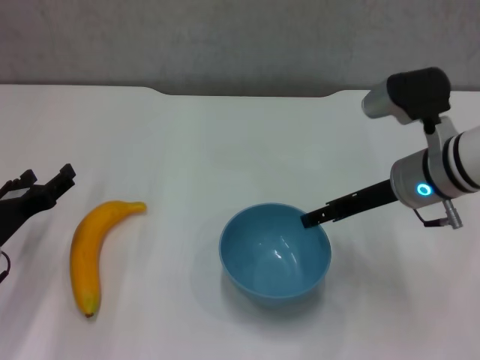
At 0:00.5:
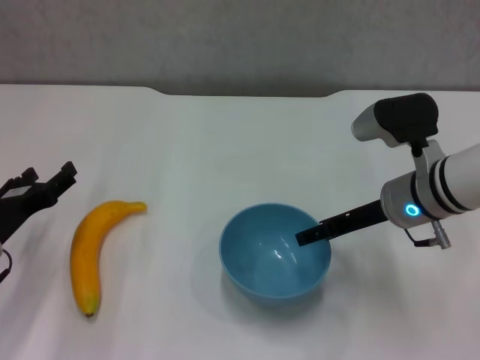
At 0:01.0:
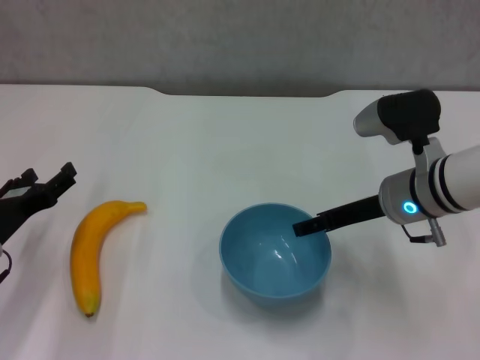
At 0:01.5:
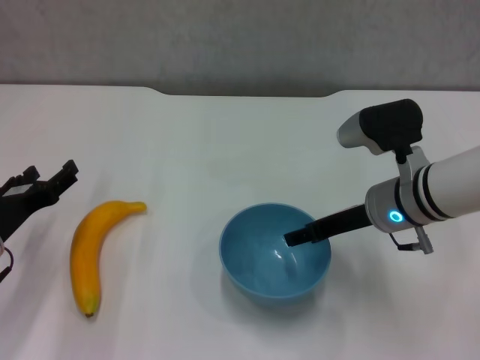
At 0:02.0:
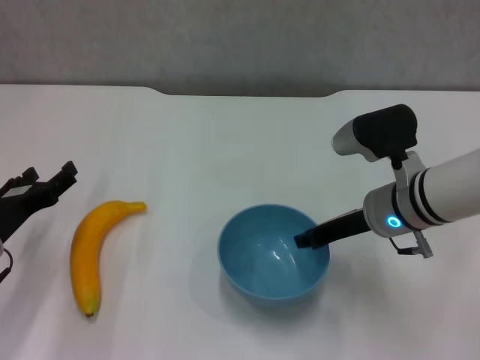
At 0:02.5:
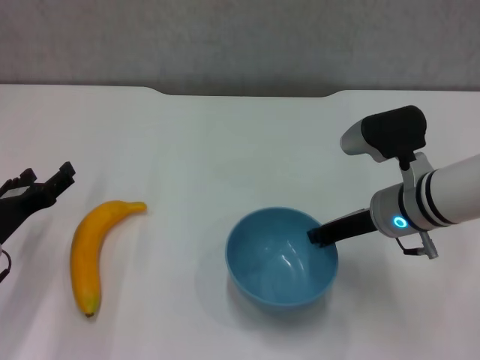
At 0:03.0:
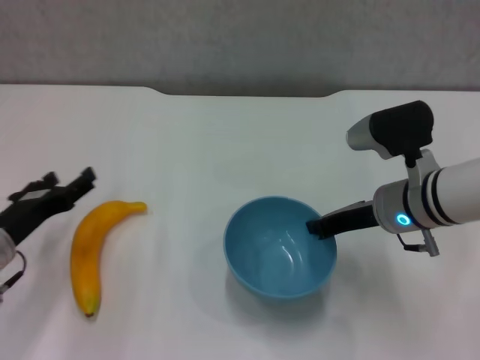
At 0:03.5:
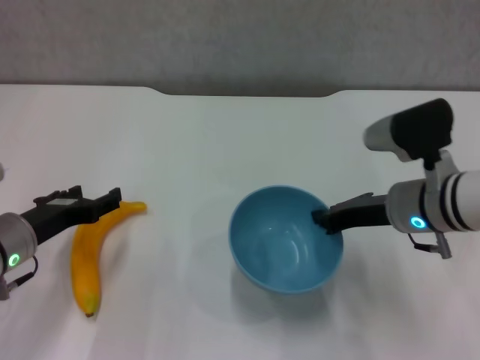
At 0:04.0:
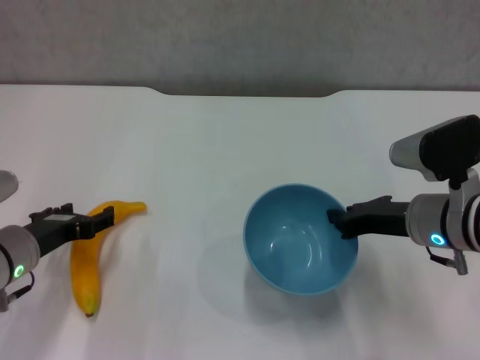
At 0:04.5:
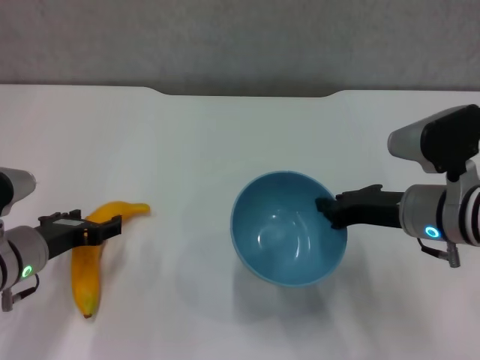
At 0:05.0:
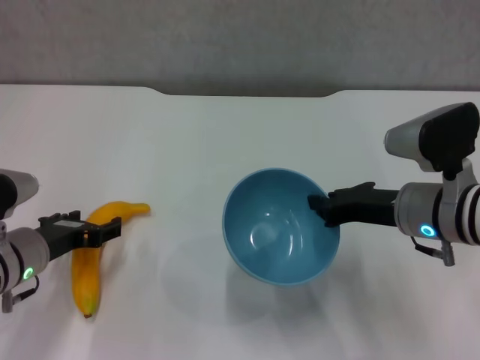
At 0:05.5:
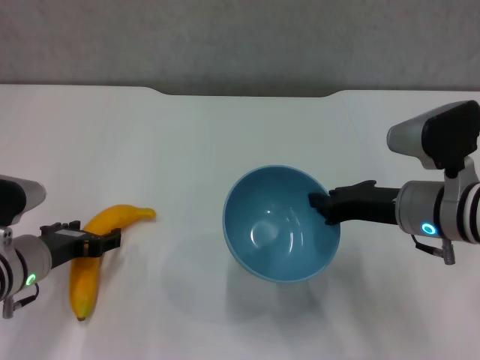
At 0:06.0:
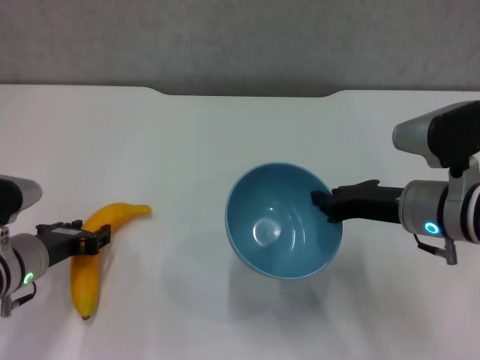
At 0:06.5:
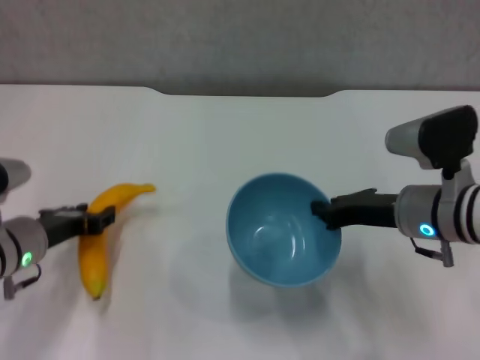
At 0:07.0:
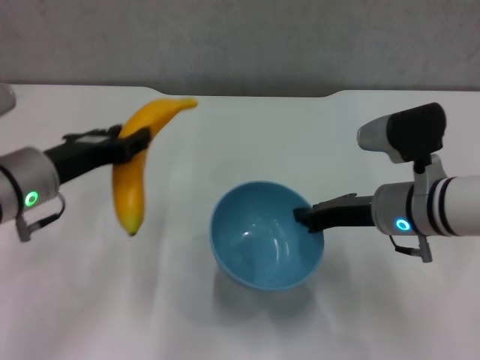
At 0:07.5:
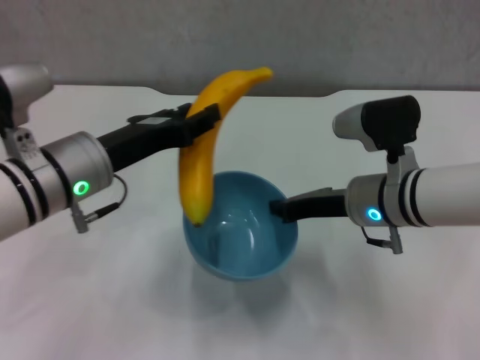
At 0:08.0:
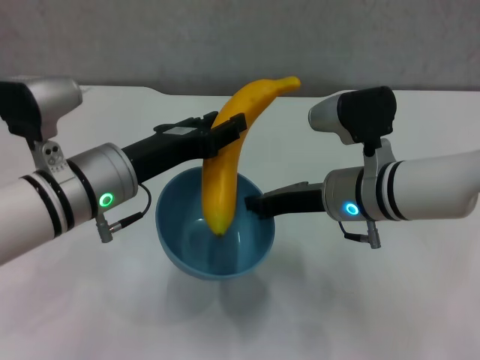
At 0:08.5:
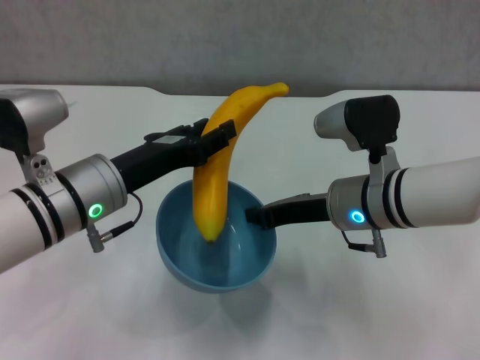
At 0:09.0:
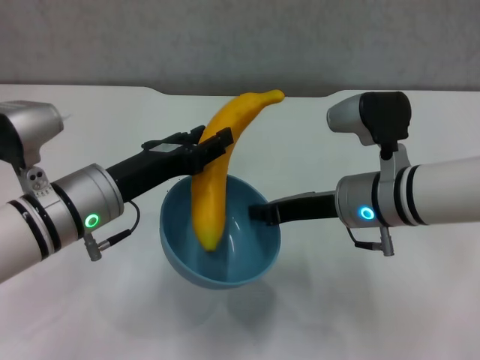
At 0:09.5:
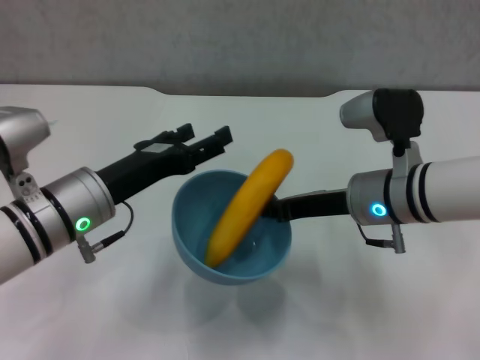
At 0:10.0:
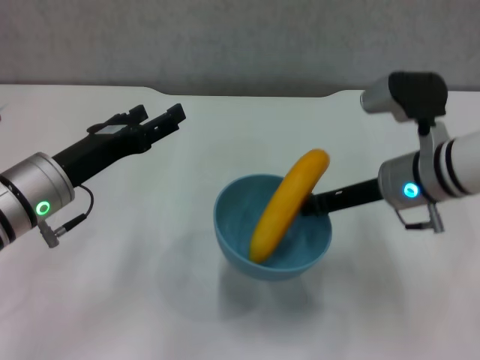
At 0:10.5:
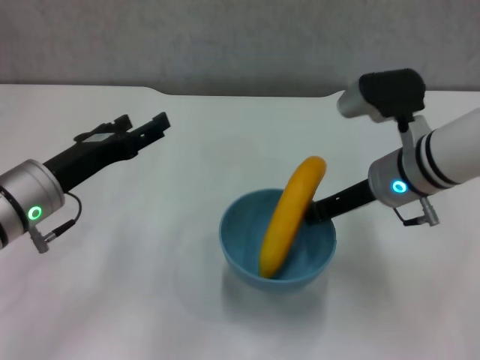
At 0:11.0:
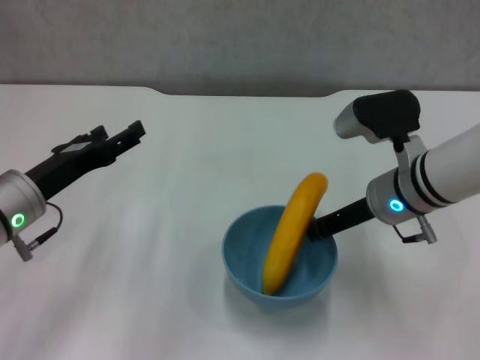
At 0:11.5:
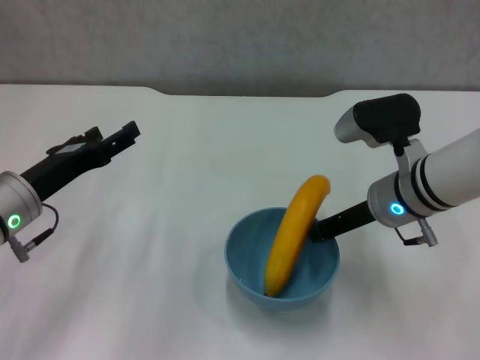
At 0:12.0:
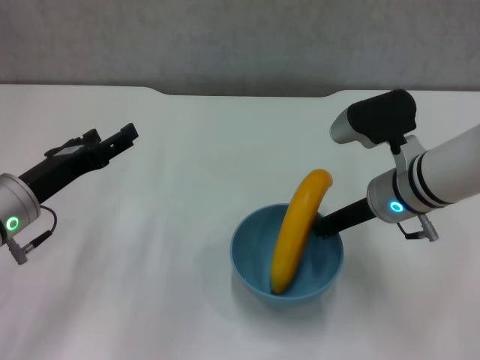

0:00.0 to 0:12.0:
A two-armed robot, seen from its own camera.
Step, 0:00.0 to 0:02.5: Grasp the blue bowl with right gripper.
Step, 0:03.0 to 0:03.5: Lift the blue bowl with right gripper.
Step, 0:04.0 to 0:06.0: Grasp the banana with left gripper.
Step, 0:06.5 to 0:09.0: Place the banana in the blue bowl with left gripper.
0:00.0 to 0:02.0: The right gripper closes up.
0:02.0 to 0:04.0: The right gripper changes place by roughly 5 cm, and closes up.
0:04.0 to 0:06.0: There are only small adjustments of the grippers.
0:06.0 to 0:08.0: The left gripper moves upward and to the right, roughly 15 cm, and closes. Meanwhile the right gripper moves to the left, approximately 5 cm.
0:08.0 to 0:10.0: The right gripper travels to the right by about 5 cm, while the left gripper goes about 5 cm to the left, and opens.

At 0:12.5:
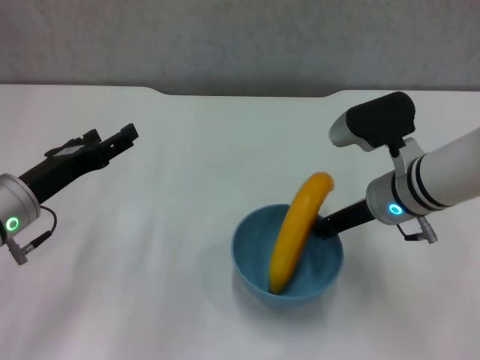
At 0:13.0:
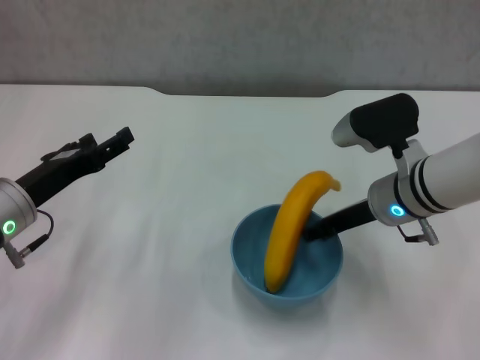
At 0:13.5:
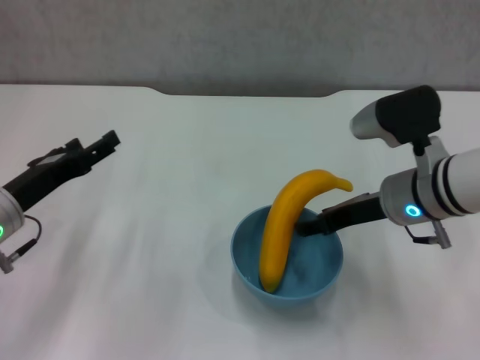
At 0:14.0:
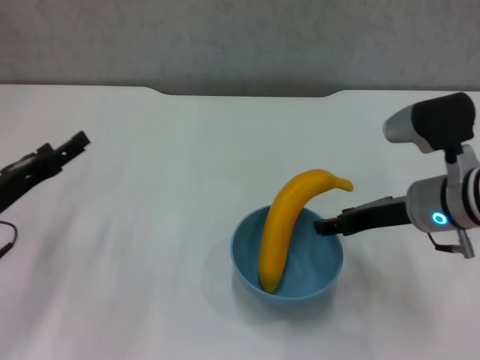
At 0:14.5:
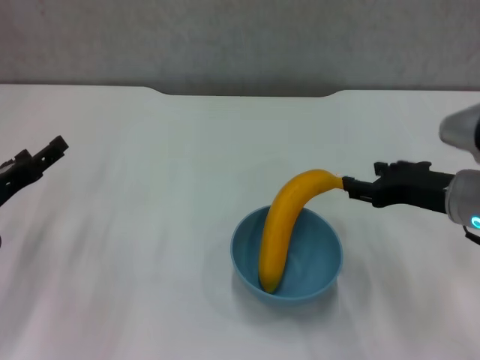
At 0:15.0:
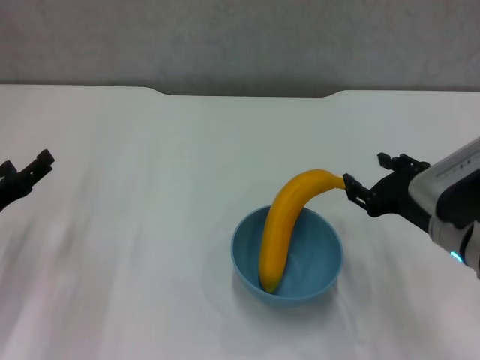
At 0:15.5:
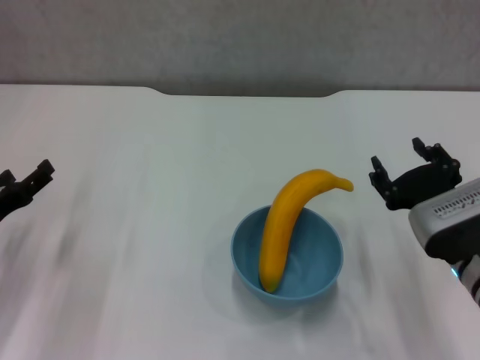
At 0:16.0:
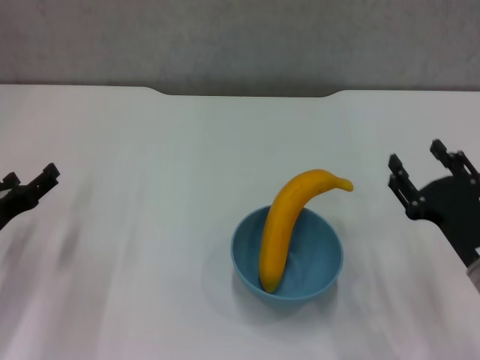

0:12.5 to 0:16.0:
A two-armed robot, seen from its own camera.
0:12.5 to 0:14.5: The right gripper goes about 10 cm to the right and backward, and opens its fingers. Meanwhile the left gripper goes roughly 5 cm to the left.
0:14.5 to 0:16.0: The right gripper goes some 10 cm downward and backward.

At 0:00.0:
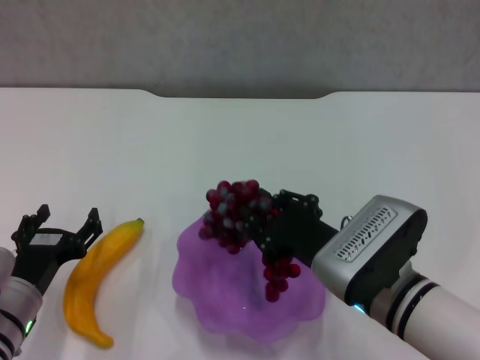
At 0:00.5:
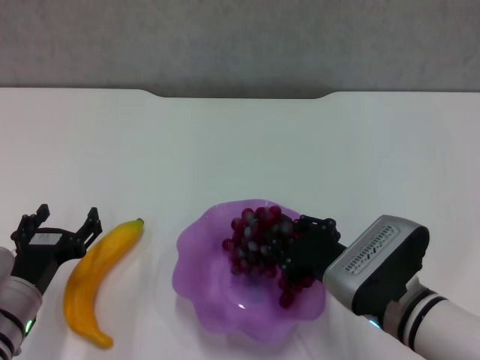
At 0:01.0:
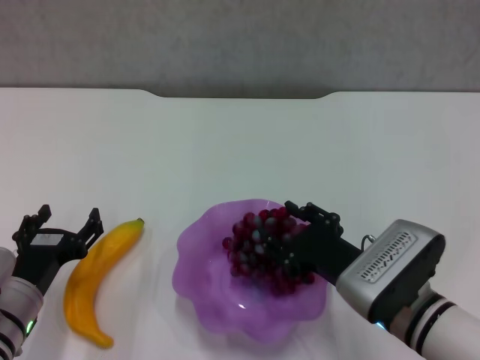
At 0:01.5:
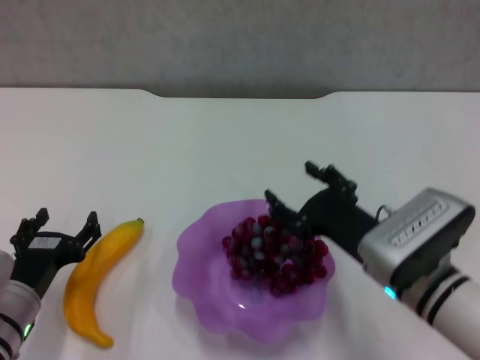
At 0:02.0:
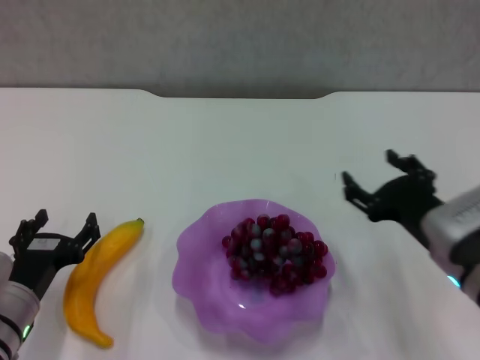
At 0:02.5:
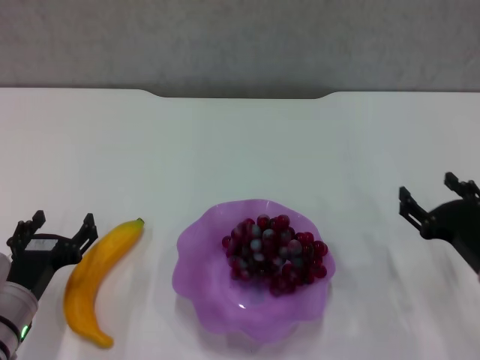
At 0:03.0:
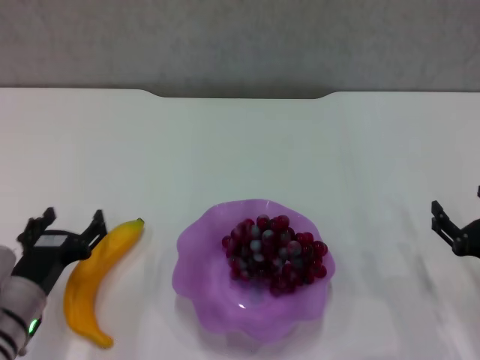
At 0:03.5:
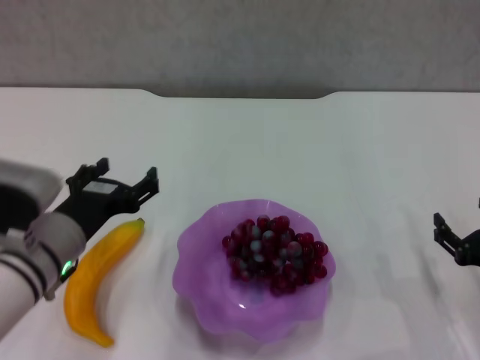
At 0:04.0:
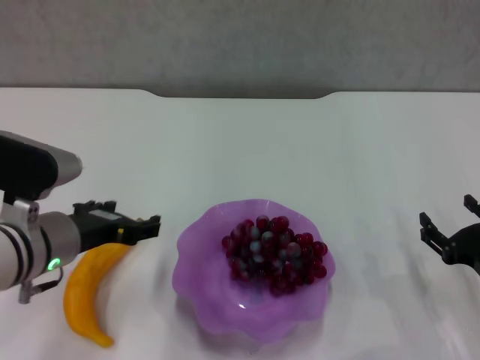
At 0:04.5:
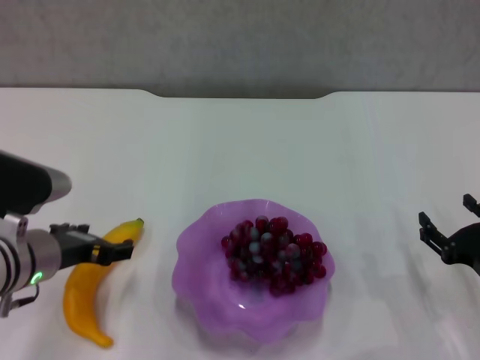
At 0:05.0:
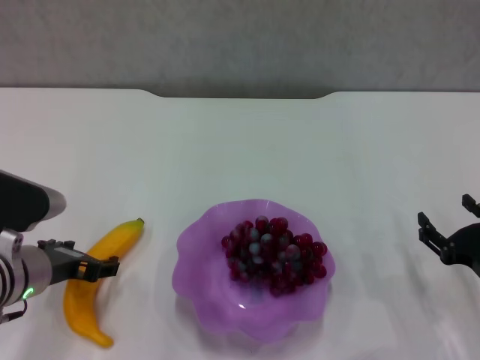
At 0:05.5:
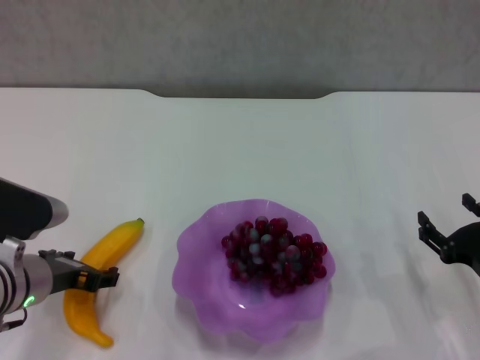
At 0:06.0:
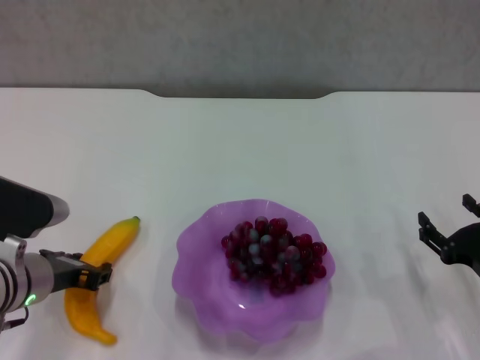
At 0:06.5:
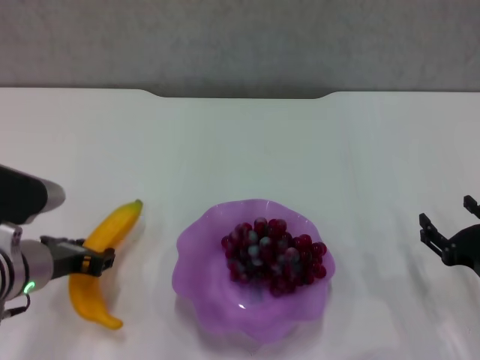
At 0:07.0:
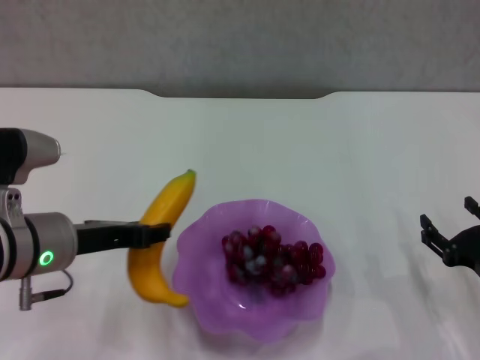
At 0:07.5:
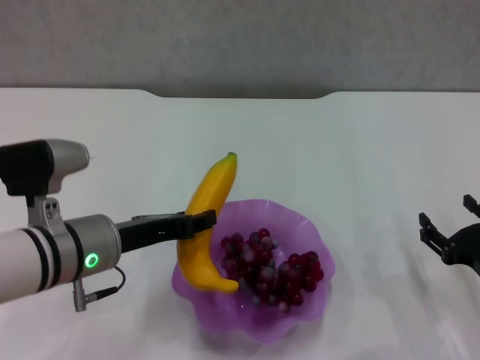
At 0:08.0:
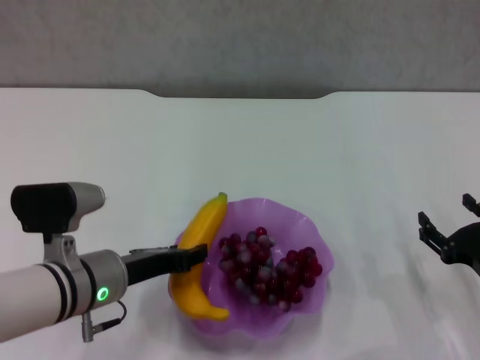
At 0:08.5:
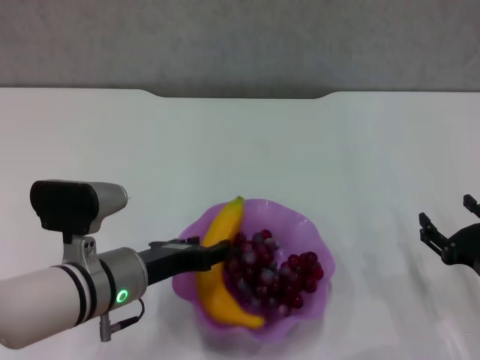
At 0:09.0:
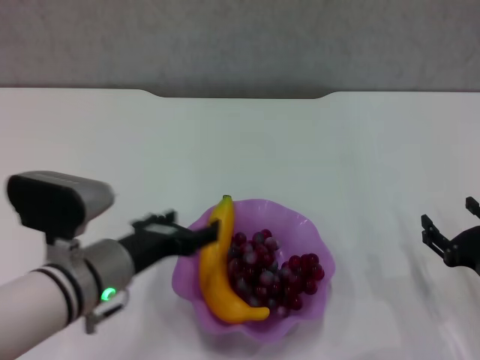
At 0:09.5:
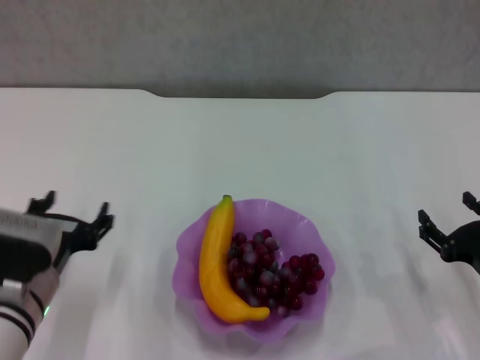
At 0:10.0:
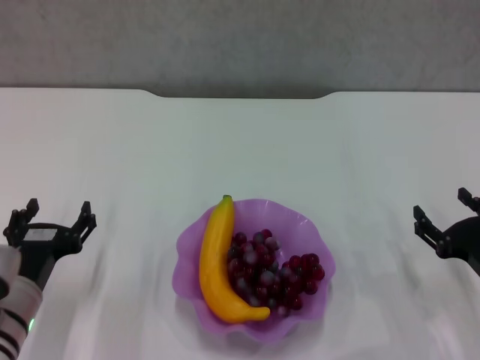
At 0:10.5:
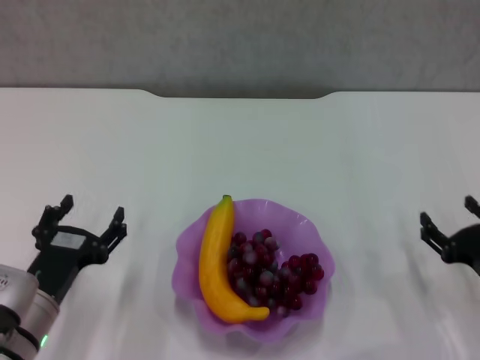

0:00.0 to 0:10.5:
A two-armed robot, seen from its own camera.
Step, 0:02.0 to 0:06.0: Grasp the banana with left gripper.
Step, 0:06.5 to 0:09.0: Place the banana in the purple plate with left gripper.
0:00.0 to 0:02.0: The right gripper is displaced to the right by about 10 cm, and opens.
0:02.0 to 0:04.0: The left gripper heads upward, covering about 10 cm, while the right gripper heads to the right and downward, covering some 10 cm.
0:04.0 to 0:06.5: The left gripper closes.
0:06.5 to 0:08.5: The left gripper goes approximately 10 cm to the right.
0:08.5 to 0:10.5: The left gripper moves to the left and downward, about 10 cm, and opens up.
